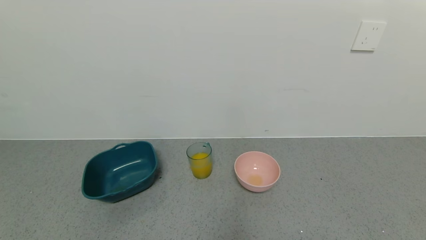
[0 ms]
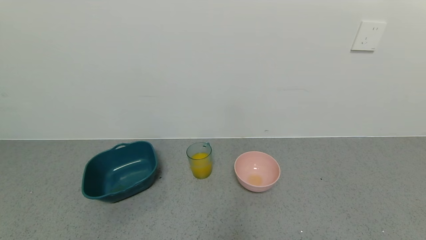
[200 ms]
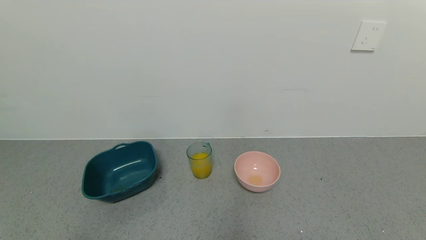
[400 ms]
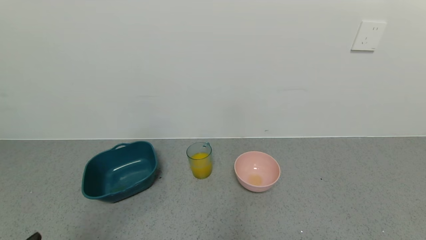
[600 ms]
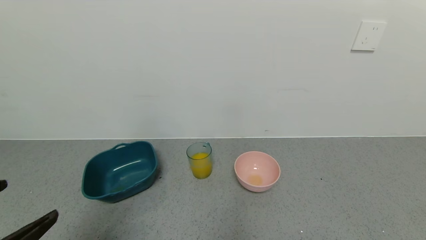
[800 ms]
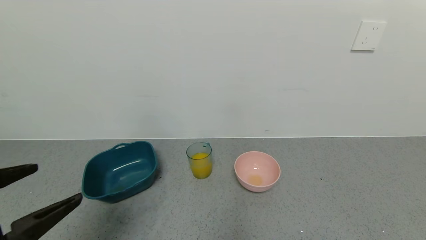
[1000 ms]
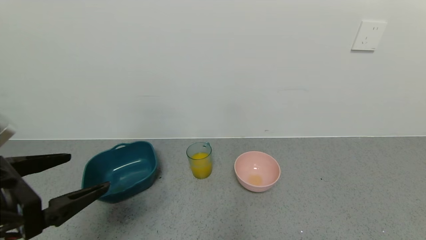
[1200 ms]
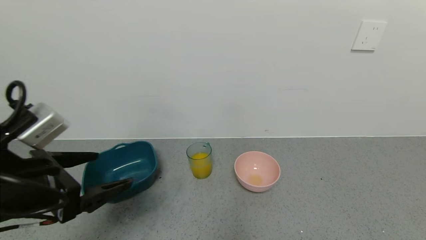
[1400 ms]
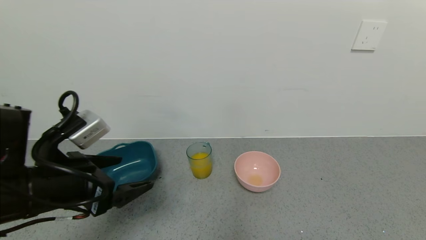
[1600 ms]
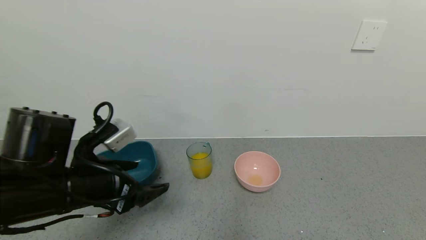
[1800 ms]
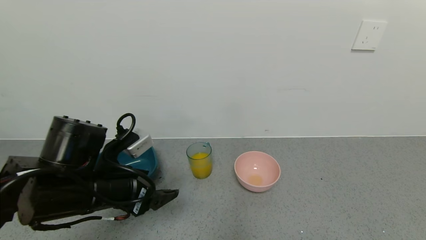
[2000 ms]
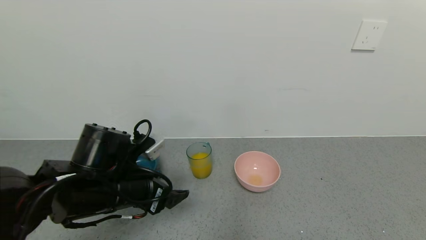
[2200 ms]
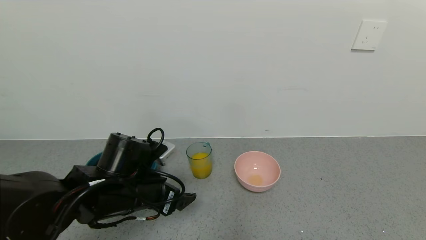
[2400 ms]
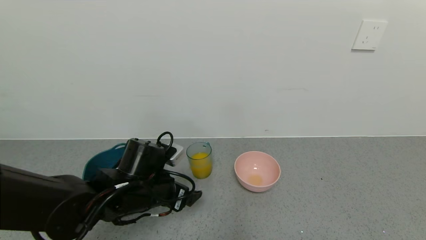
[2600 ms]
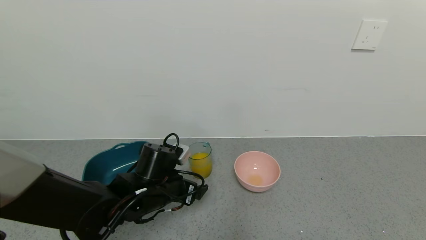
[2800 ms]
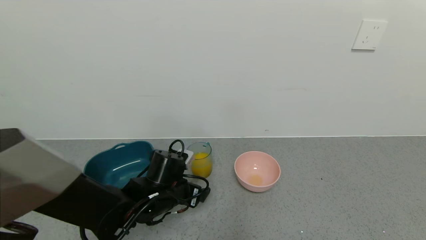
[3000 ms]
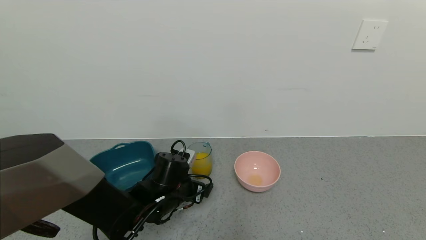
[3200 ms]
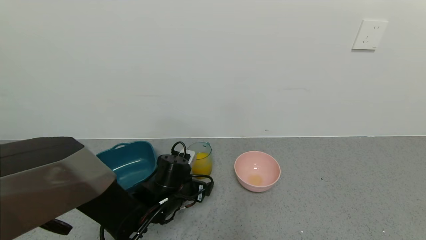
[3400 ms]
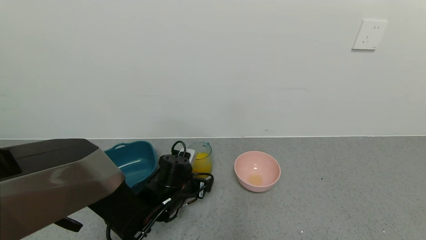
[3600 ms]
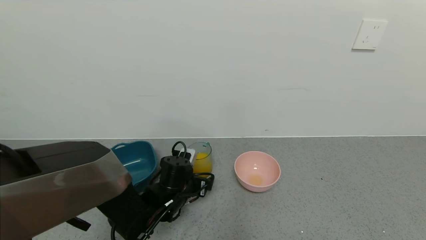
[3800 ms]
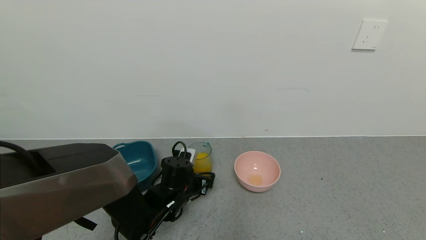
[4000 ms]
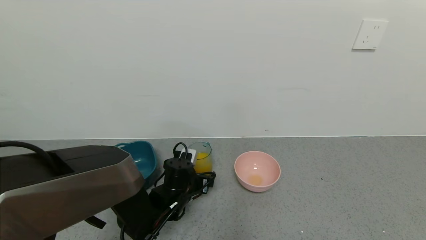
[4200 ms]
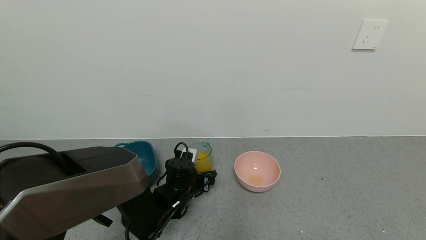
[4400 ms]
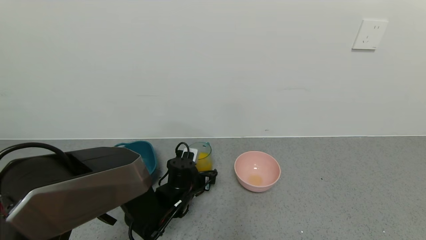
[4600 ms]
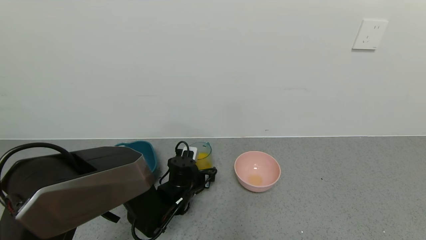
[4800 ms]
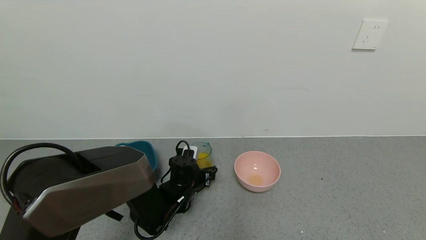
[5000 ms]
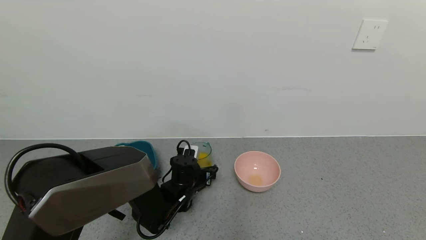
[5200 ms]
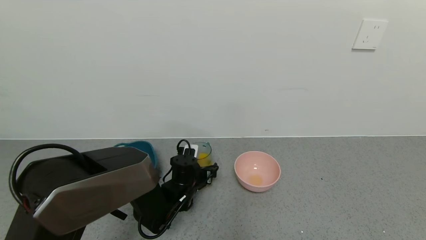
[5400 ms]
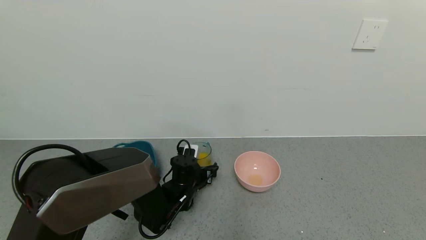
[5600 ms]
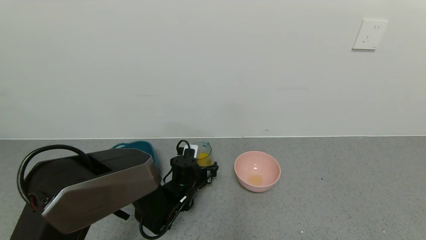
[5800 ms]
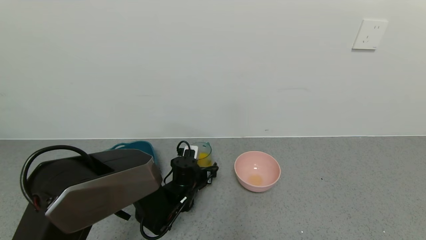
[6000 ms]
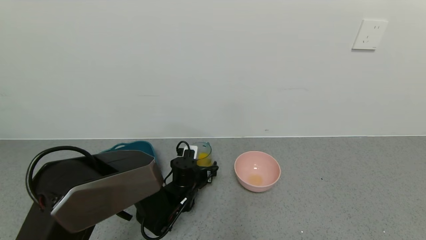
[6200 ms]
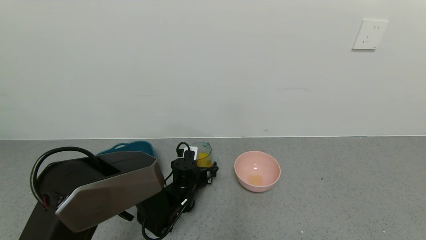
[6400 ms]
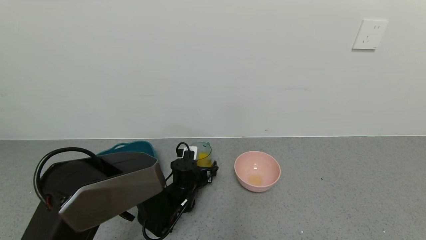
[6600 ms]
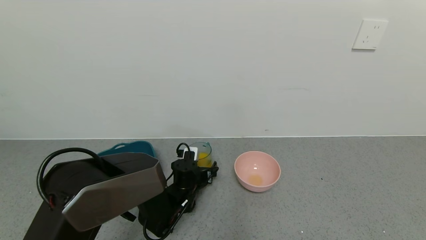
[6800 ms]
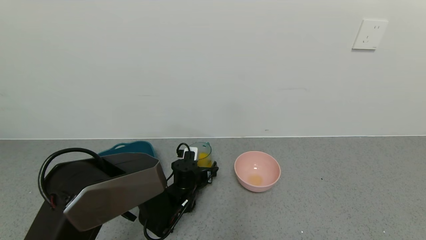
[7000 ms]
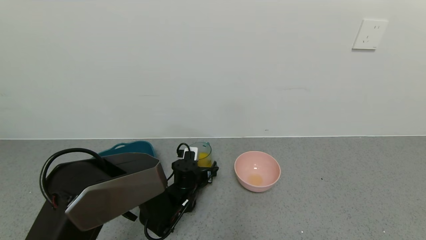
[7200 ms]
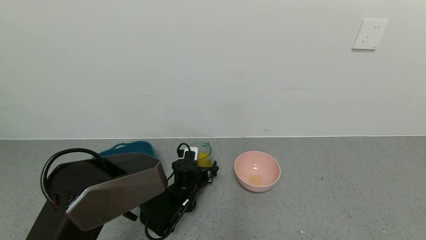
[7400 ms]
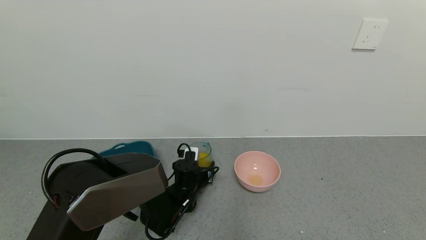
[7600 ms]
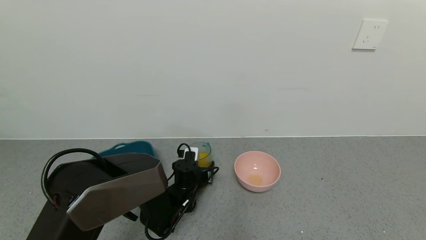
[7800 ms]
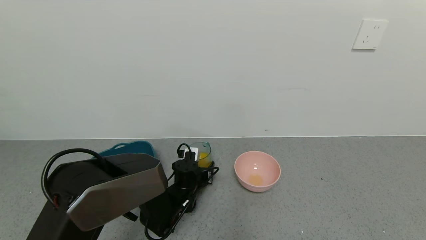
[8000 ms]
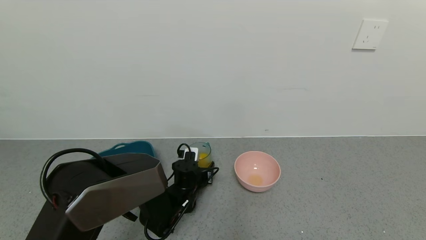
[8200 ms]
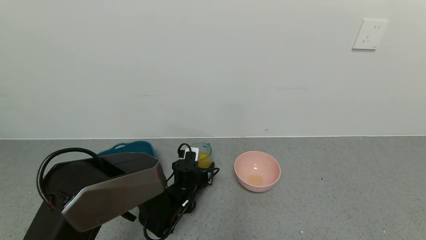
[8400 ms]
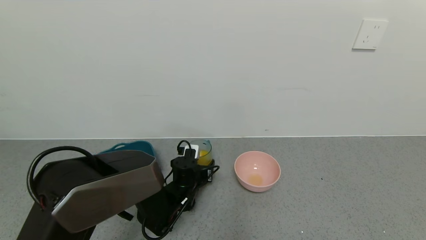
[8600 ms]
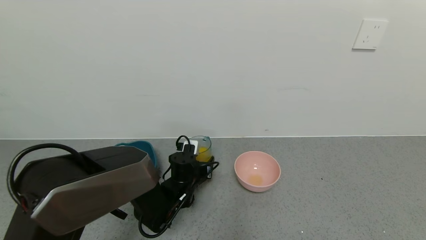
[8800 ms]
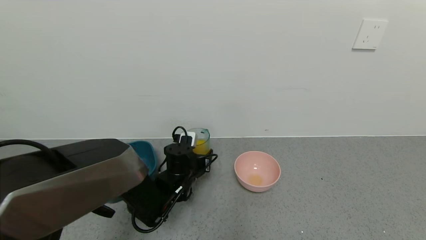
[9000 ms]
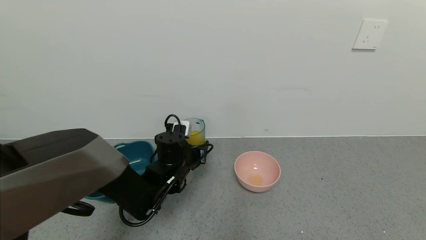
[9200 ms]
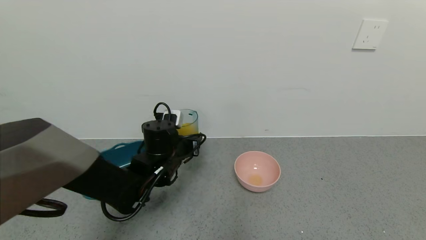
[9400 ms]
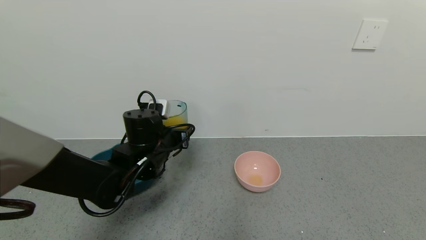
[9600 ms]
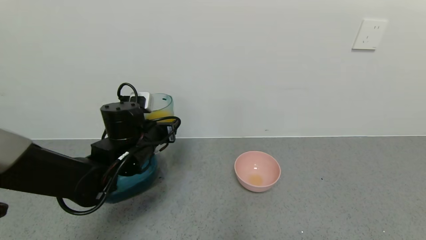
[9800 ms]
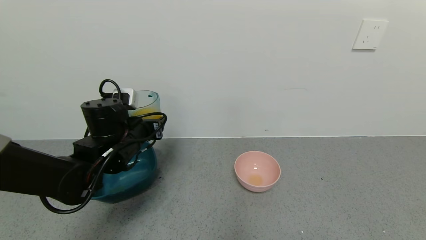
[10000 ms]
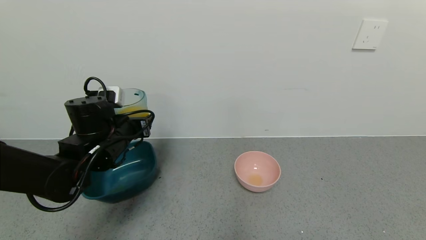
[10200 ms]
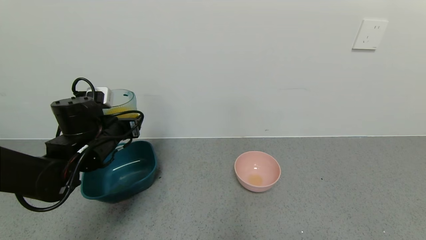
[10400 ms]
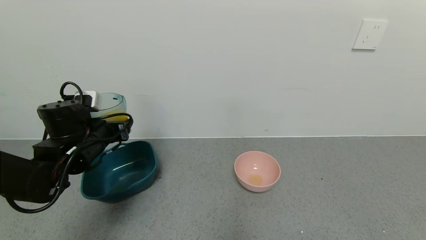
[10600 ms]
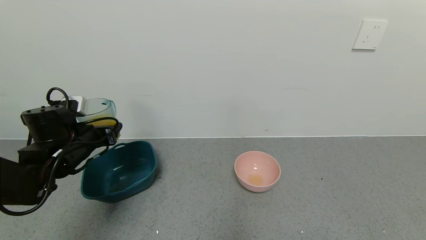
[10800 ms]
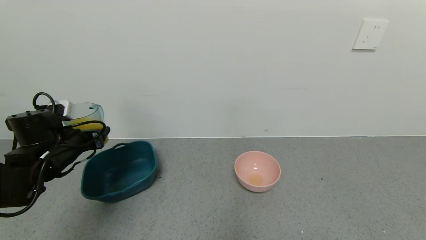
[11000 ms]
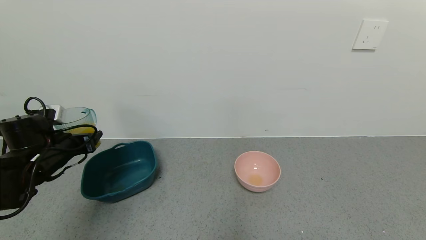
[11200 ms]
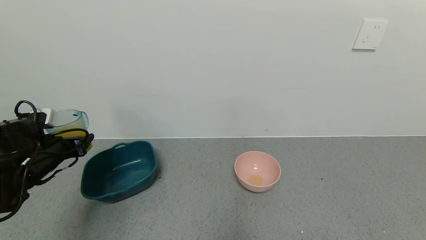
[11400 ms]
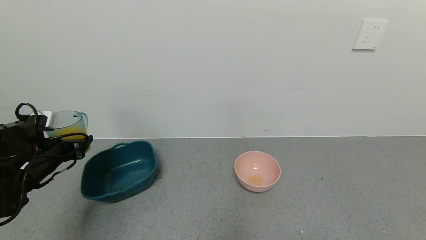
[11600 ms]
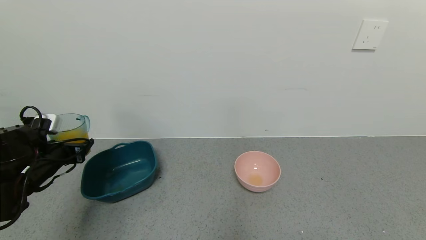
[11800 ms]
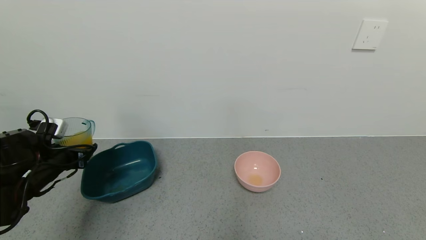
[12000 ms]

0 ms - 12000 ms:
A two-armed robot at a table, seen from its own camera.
Task of the whole recording: use a gripper to pick up the cup and pour the liquid into a bowl or tray.
Step, 0 ms - 8200 ms: Grasp the glass of orange juice with the left gripper.
0 ms - 1600 ms: The left gripper travels forward and upward by about 25 cm.
1600 ms - 3000 ms: The left gripper heads downward, to the right and forward, covering roughly 20 cm.
3000 ms - 4400 ms: The left gripper goes roughly 5 cm downward.
4400 ms - 6000 ms: The grippers stay close to where they were, moving slightly.
6000 ms - 7600 ms: The left gripper closes its fingers.
7600 ms - 9000 ms: The left gripper is displaced upward by approximately 5 cm.
9000 ms - 10400 ms: The left gripper goes approximately 20 cm to the left and upward.
10400 ms - 12000 ms: The left gripper is displaced to the left and downward by about 15 cm.

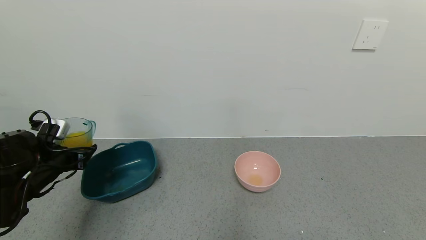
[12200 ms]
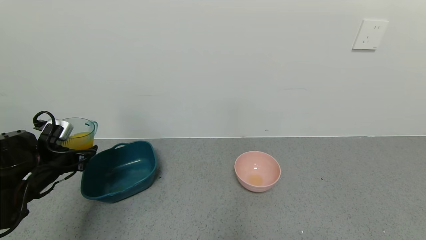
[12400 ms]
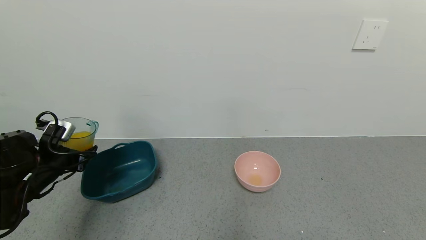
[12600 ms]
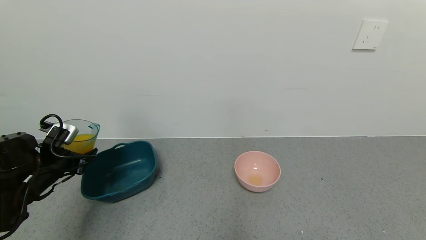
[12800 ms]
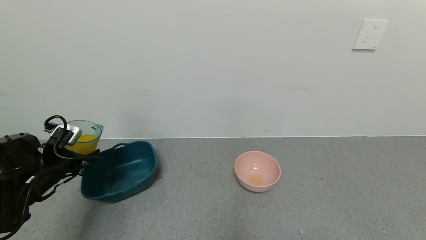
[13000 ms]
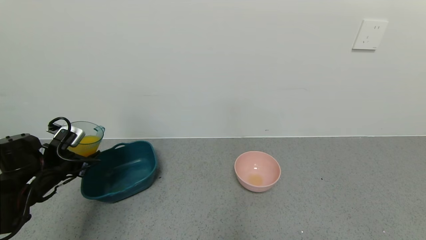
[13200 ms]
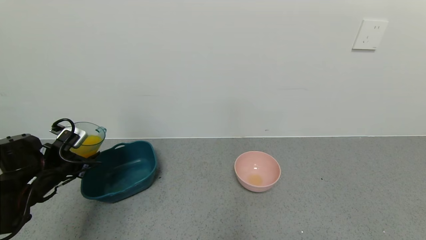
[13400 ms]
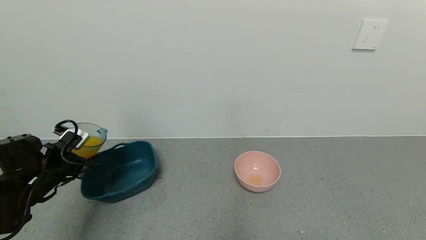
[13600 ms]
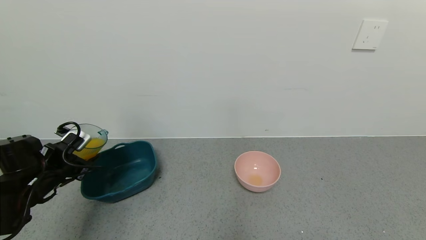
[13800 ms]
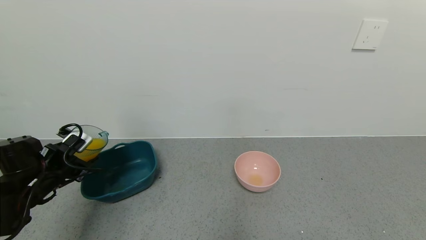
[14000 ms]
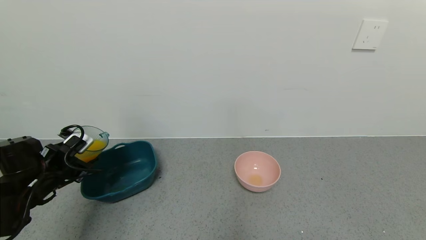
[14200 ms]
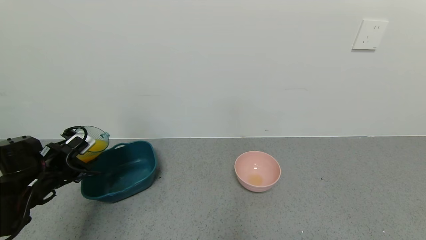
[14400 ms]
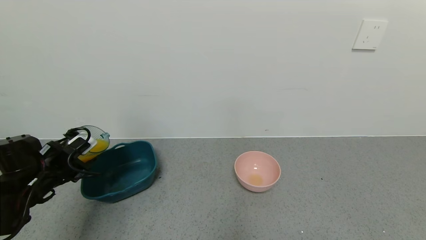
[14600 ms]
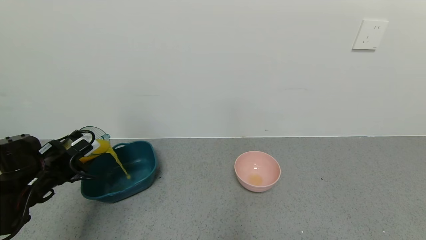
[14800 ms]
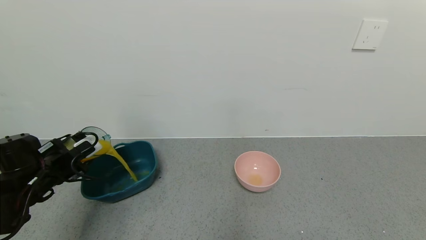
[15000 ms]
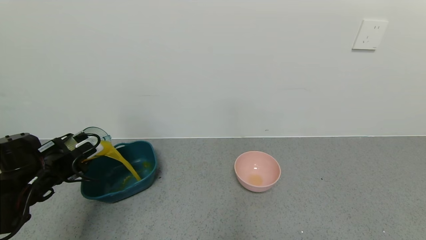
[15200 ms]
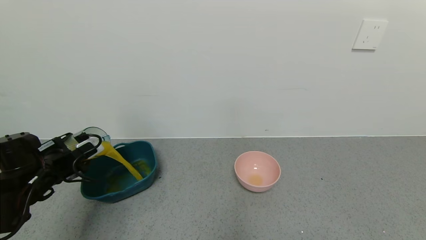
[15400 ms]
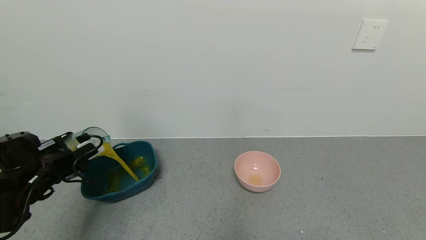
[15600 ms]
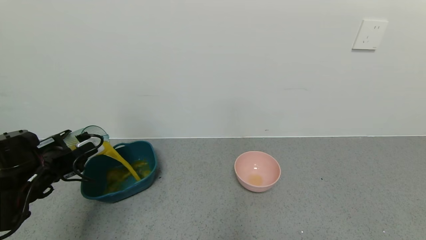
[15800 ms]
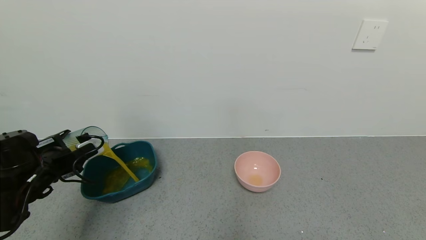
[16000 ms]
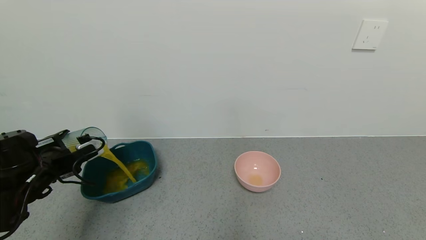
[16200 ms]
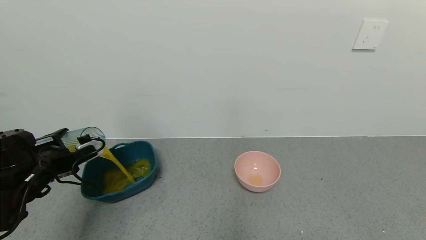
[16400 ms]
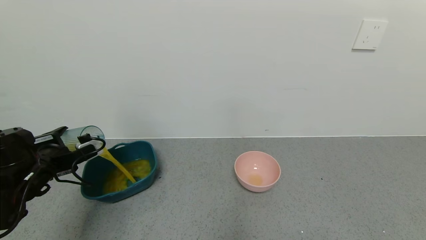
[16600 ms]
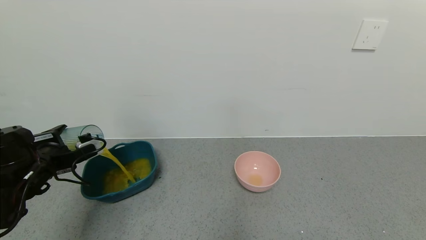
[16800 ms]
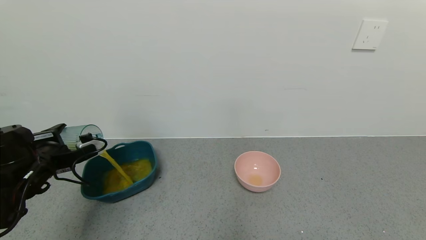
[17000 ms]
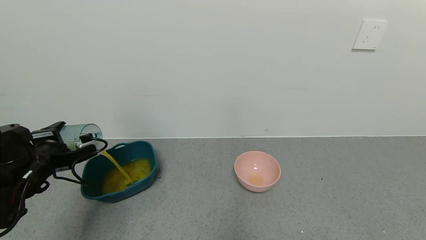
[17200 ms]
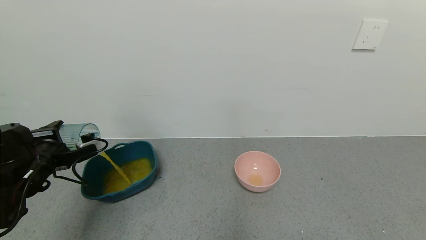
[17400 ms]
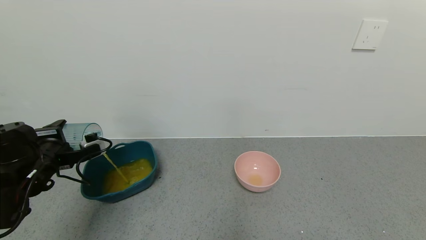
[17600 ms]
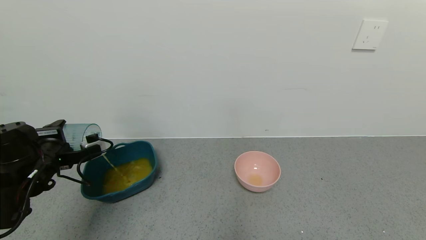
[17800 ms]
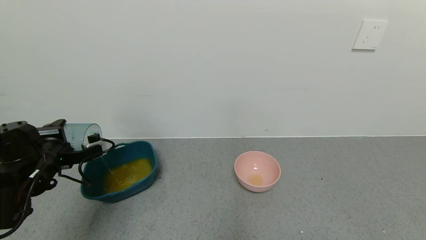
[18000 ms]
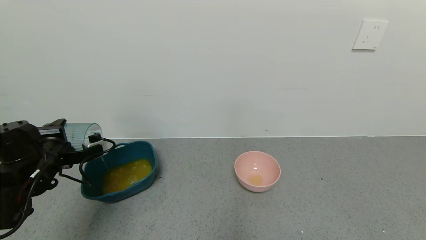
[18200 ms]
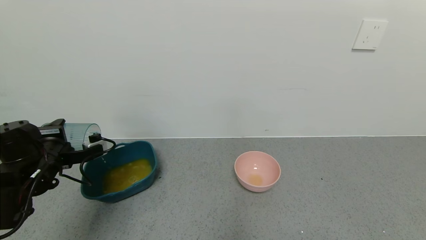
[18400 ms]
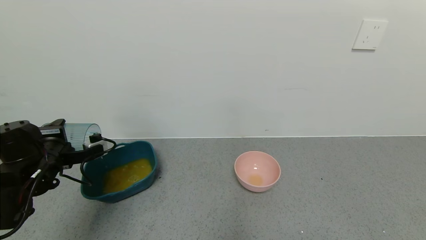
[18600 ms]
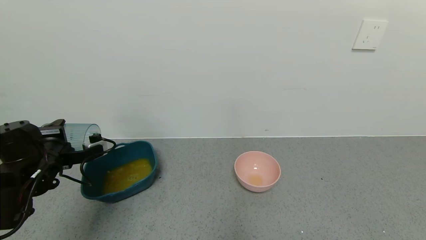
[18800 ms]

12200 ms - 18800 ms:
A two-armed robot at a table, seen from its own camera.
Task of the whole recording: use a gripper to pick up the cup and pour the liquid into a bowl or tray.
17200 ms - 18800 ms: The grippers make only small movements.
